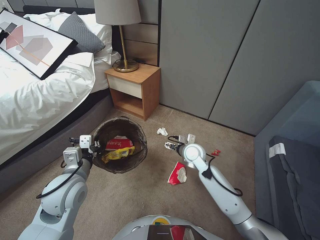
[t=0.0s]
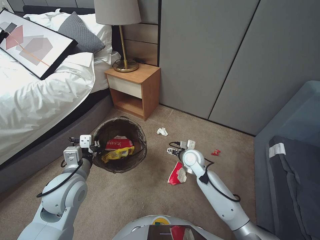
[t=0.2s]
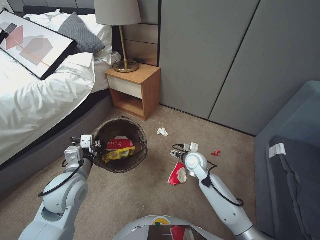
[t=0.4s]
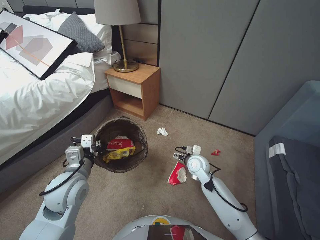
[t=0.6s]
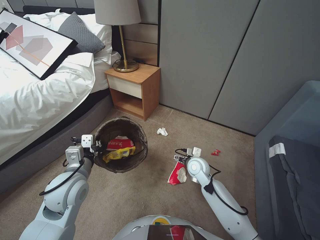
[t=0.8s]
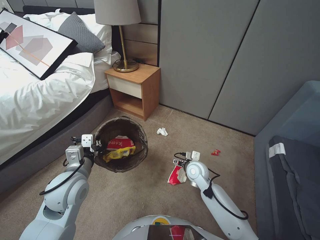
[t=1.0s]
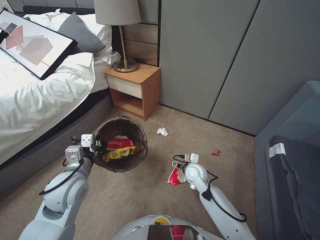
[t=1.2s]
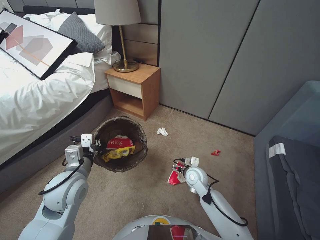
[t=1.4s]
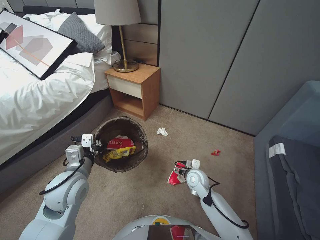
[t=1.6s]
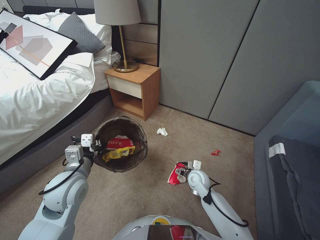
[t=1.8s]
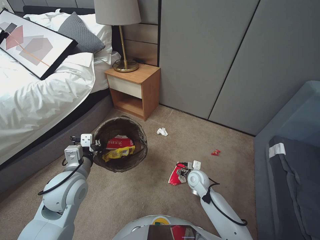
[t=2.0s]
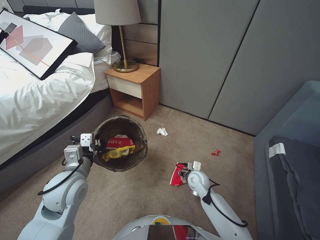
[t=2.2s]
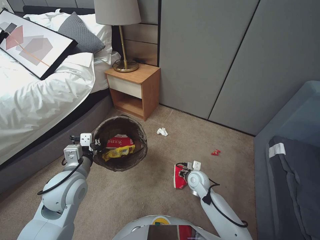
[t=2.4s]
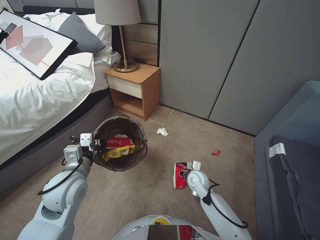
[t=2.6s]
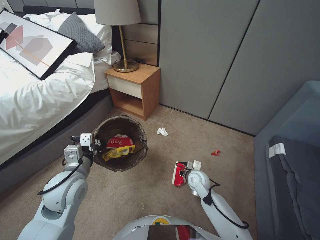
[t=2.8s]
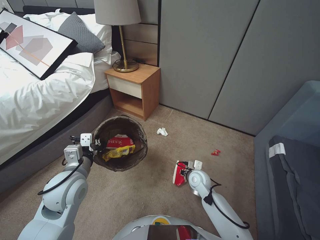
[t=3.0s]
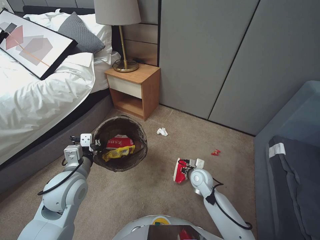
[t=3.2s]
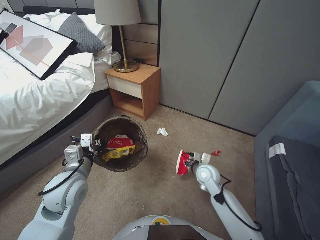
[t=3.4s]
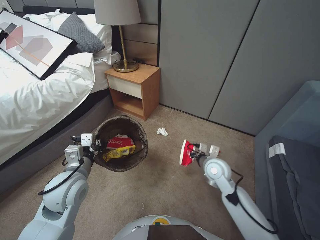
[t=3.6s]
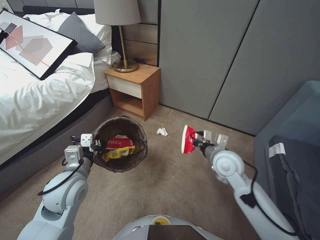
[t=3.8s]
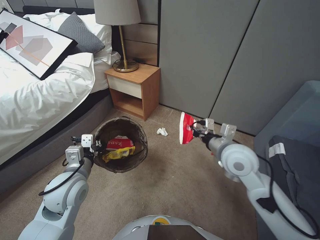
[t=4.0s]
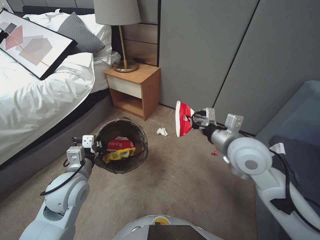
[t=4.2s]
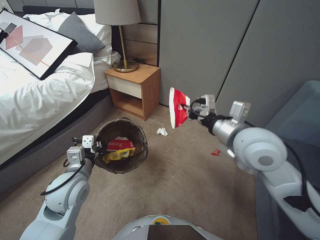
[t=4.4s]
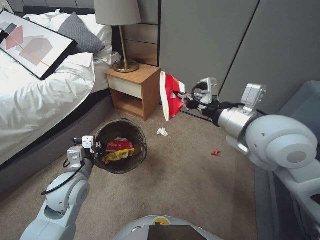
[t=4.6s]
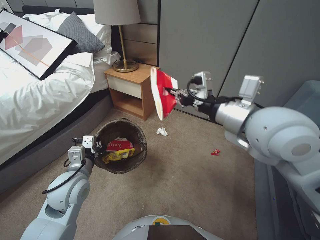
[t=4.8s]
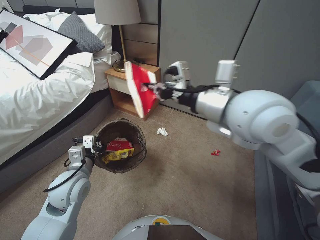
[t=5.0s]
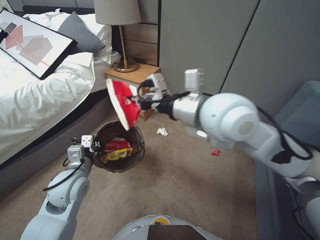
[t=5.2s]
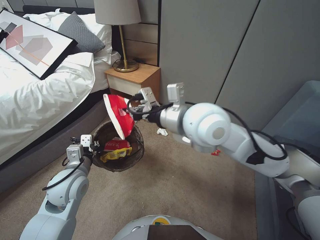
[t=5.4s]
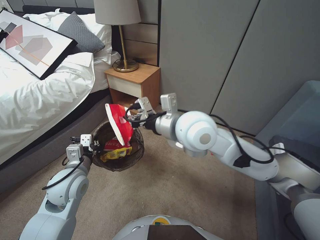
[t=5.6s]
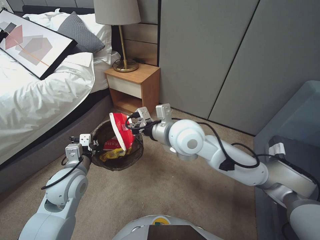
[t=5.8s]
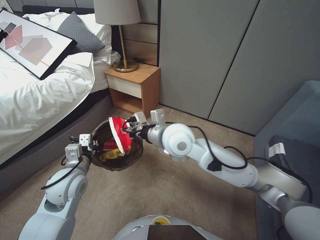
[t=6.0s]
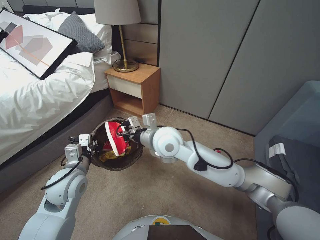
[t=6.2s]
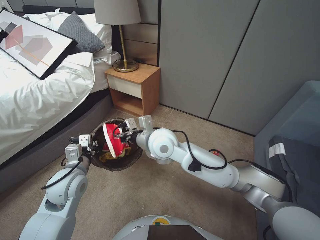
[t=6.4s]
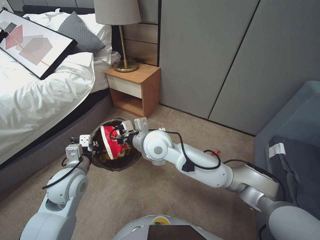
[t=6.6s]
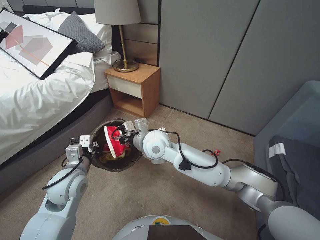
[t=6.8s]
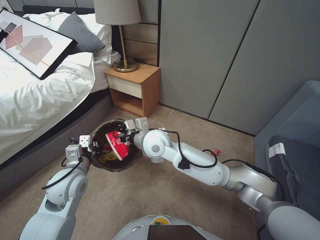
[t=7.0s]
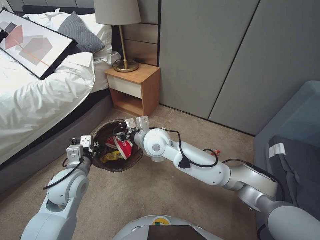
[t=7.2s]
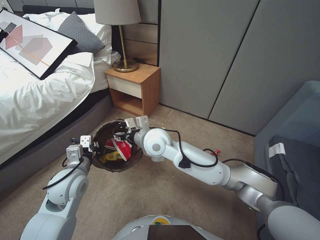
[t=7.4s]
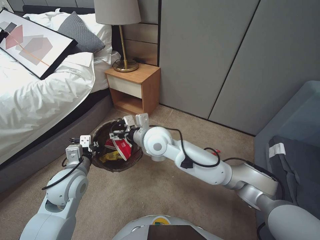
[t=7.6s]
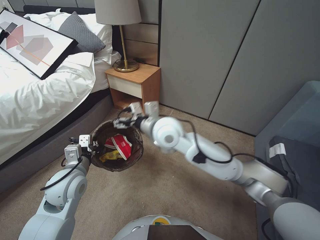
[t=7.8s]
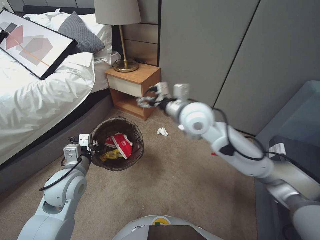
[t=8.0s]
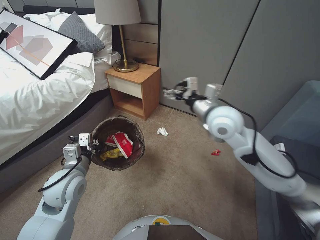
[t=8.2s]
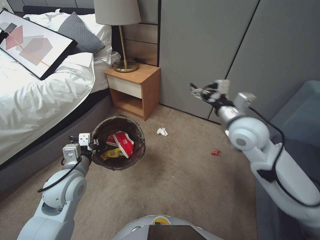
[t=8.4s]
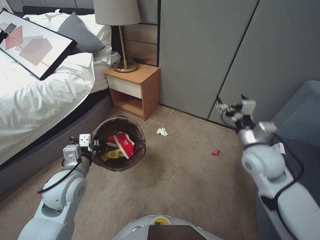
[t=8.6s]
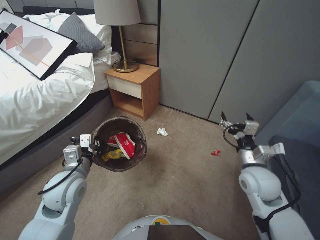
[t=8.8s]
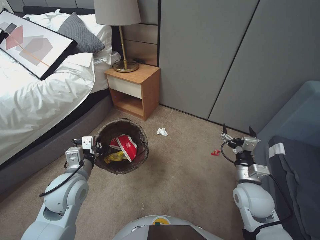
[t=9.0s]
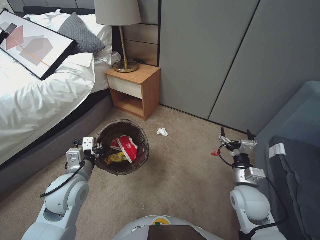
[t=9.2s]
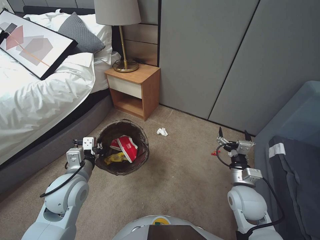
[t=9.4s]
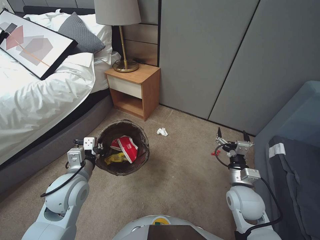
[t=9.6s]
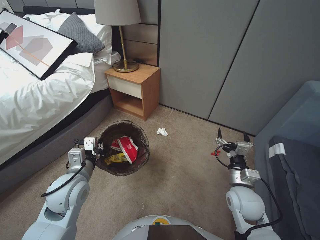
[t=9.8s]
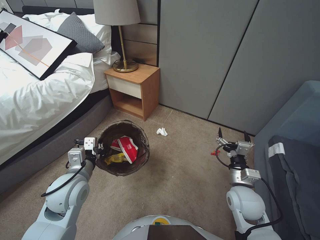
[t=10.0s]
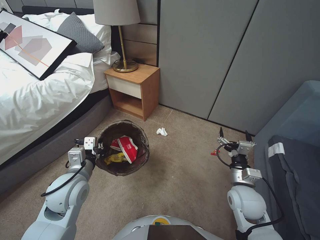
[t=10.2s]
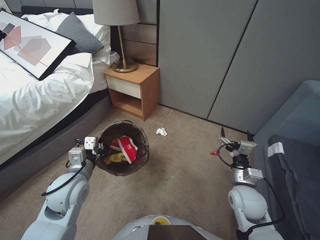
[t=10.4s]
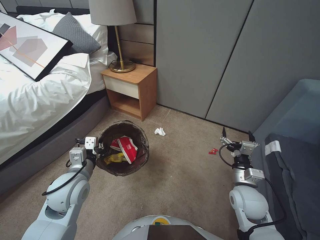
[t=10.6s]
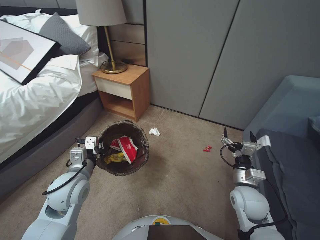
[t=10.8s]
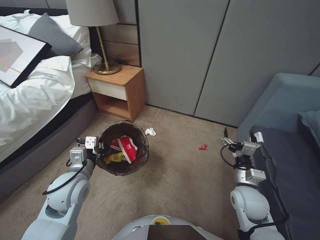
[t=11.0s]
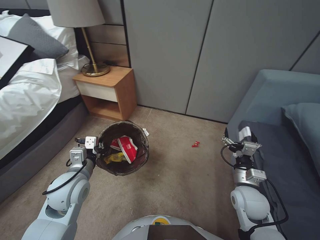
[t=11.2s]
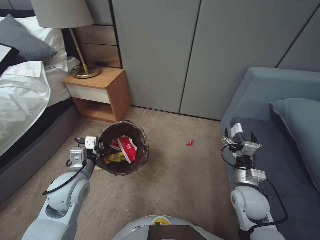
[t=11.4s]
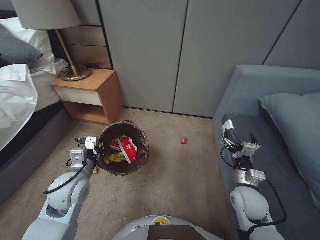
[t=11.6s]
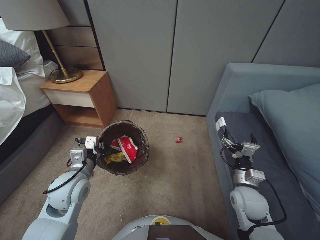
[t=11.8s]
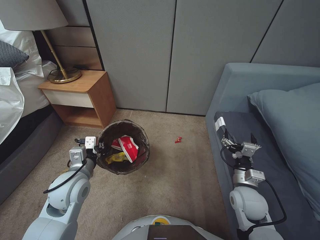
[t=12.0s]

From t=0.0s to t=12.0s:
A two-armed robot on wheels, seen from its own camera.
Task of the whole recording: Pick up the trash bin, then pick up the garbage from the floor and place it into the trash bin.
From t=0.0s to t=1.6s: The right gripper shifts about 15 cm downward and backward.
From t=1.6s to t=3.0s: The right gripper closes its fingers.
From t=3.0s to t=4.4s: The right gripper shifts approximately 35 cm upward.
From t=4.4s to t=6.0s: The right gripper goes approximately 15 cm to the left.
From t=6.0s to t=7.6s: The right gripper shifts some 10 cm to the left and downward, and opens up.
From t=7.6s to t=9.0s: The right gripper moves to the right, roughly 30 cm.
From t=9.0s to t=10.4s: The grippers stay close to where they were, moving slightly.

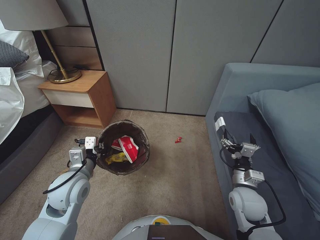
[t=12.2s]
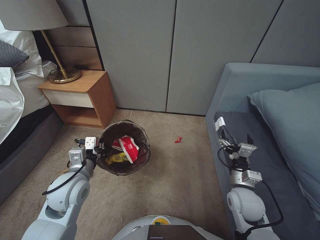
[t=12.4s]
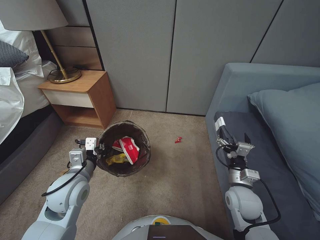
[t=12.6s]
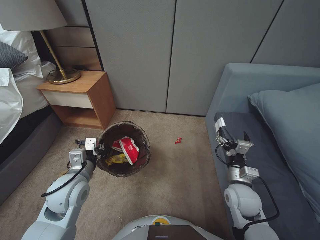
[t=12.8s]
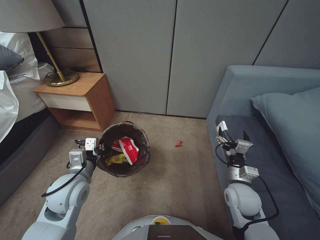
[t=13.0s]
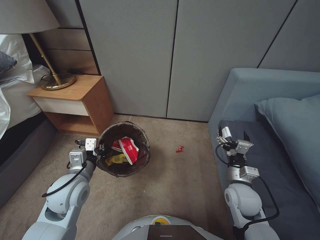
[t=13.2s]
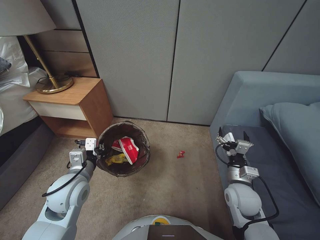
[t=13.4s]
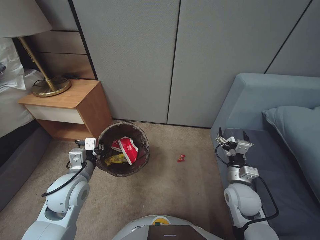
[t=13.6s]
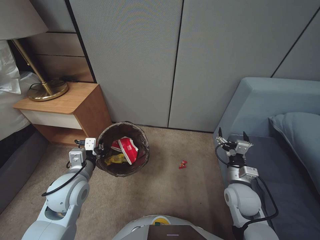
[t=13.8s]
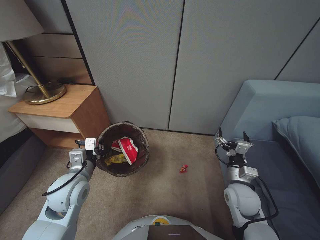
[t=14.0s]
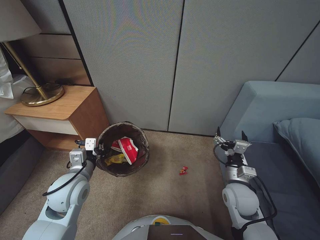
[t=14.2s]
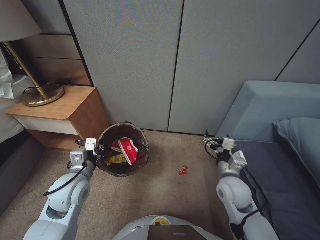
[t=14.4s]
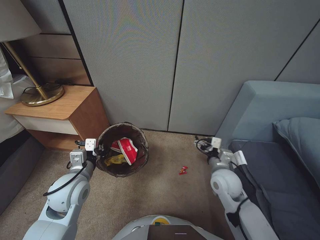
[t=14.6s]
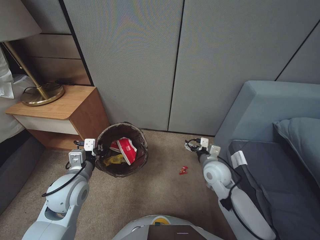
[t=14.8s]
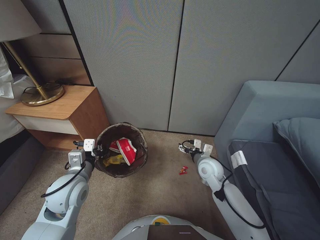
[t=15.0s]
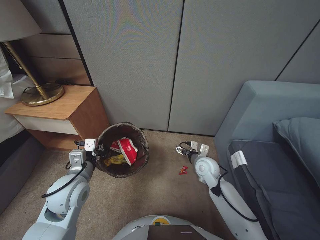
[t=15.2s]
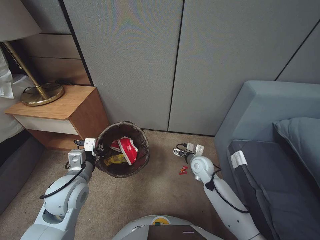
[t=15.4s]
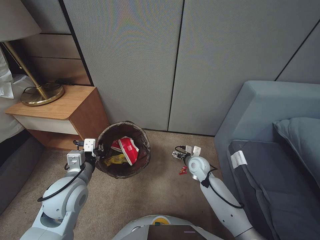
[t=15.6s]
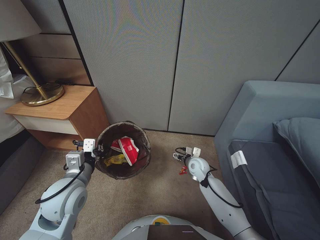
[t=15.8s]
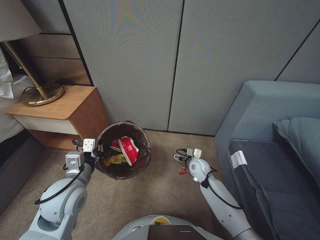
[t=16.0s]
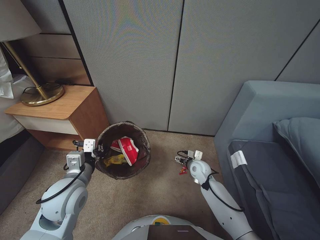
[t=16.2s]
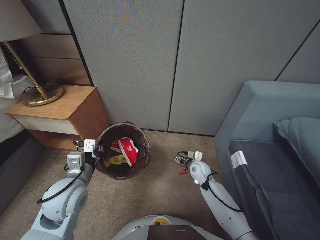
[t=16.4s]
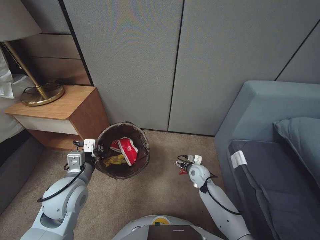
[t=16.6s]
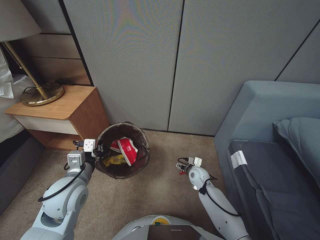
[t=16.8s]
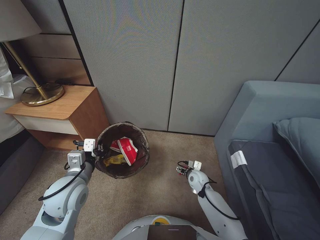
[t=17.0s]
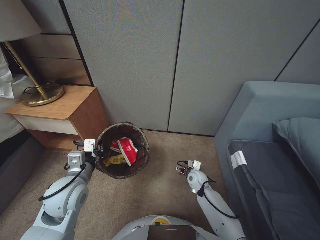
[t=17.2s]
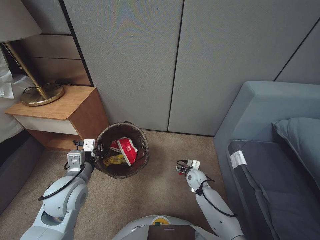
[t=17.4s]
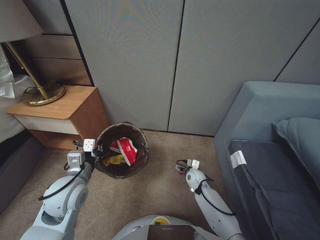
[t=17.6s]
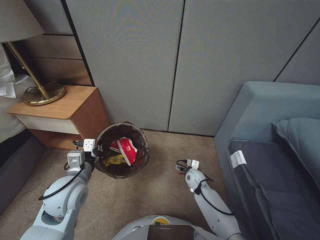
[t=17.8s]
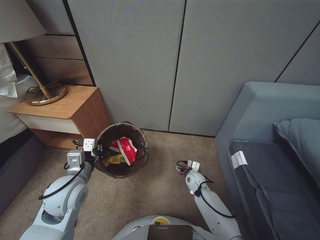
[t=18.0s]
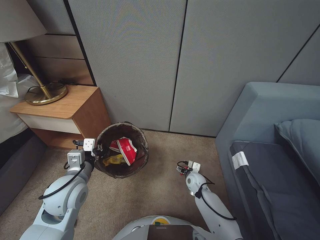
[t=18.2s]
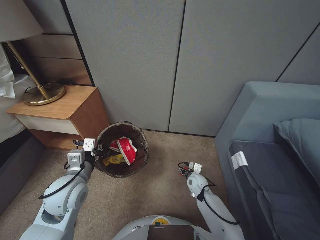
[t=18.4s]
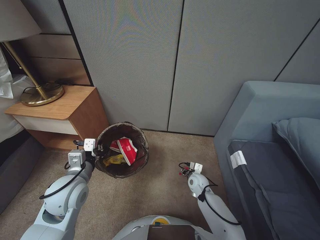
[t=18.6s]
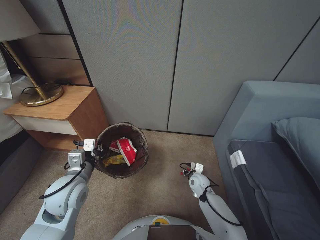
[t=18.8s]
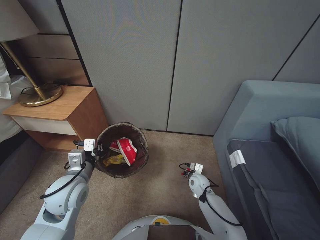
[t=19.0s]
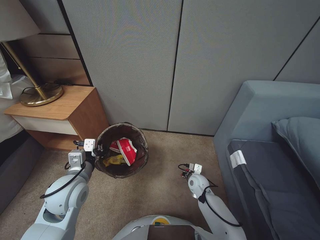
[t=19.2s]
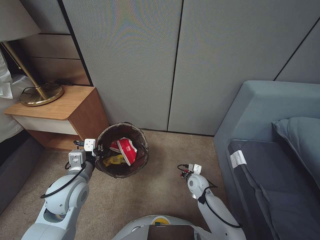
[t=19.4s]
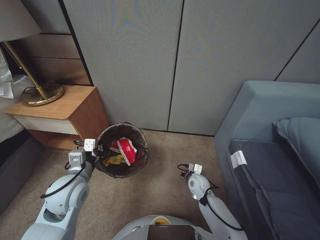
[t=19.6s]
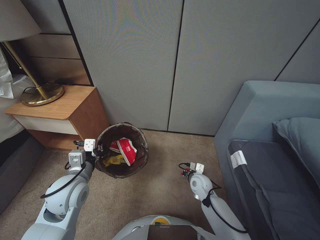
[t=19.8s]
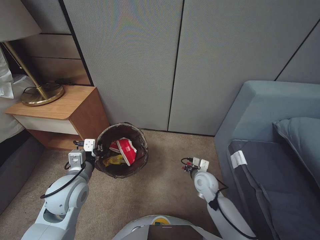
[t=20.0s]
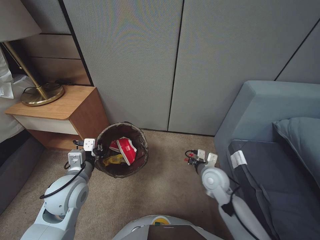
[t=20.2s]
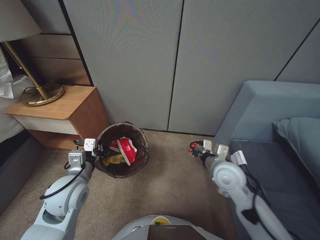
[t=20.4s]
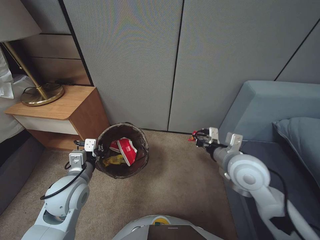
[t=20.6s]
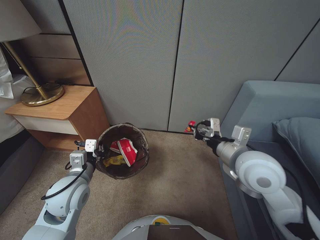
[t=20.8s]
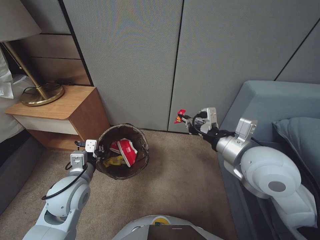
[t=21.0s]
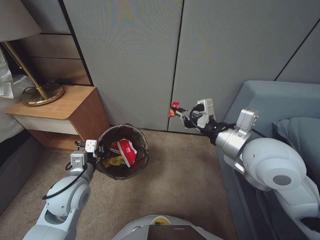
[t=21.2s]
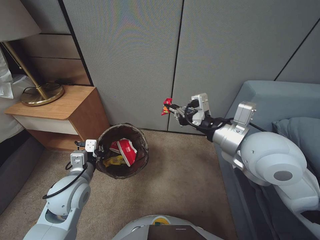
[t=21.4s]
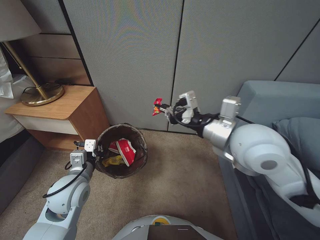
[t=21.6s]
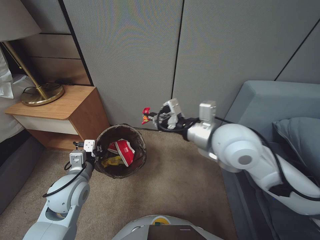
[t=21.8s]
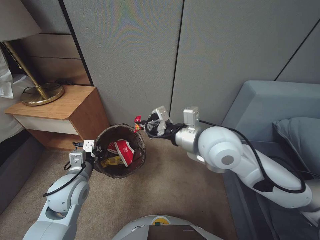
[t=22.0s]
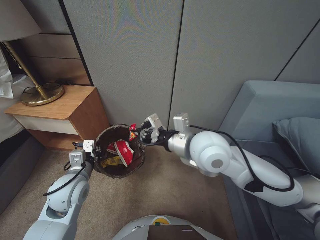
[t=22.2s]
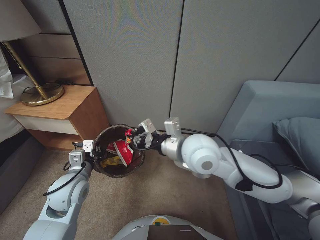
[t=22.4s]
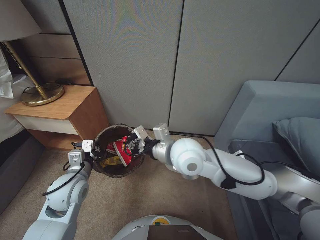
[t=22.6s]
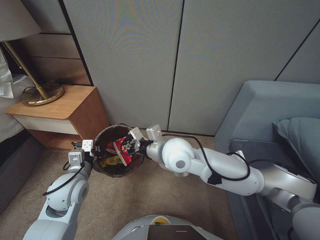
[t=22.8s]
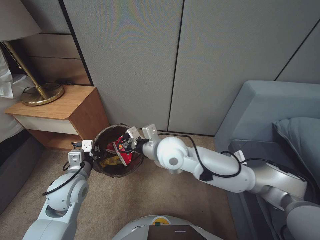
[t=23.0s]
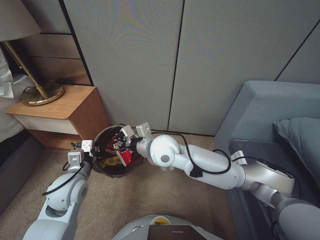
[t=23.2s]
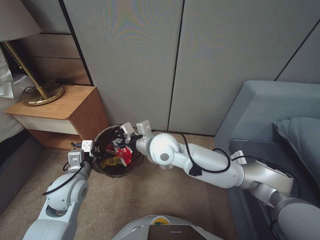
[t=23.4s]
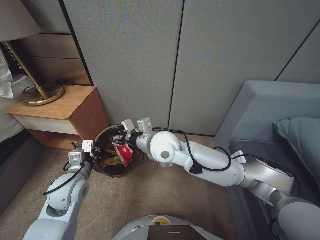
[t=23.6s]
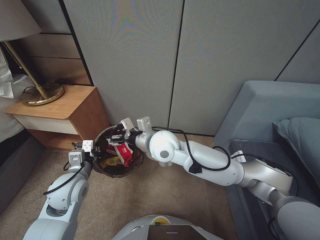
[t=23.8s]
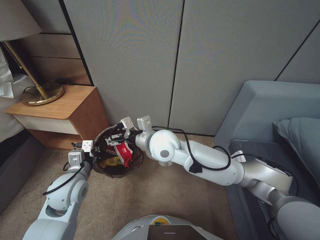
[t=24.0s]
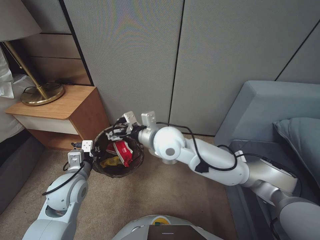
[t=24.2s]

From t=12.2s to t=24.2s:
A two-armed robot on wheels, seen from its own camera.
Task of the whole recording: Pick up the trash bin, then pick up the garbage from the floor and place it into the trash bin.
From t=13.8s to t=15.2s: The right gripper heads forward and to the left, covering about 15 cm.
From t=15.2s to t=16.6s: The right gripper heads downward, covering approximately 10 cm.
From t=16.6s to t=18.2s: The right gripper moves downward, approximately 5 cm.
From t=18.2s to t=19.8s: The right gripper travels upward by some 5 cm, and closes.
From t=19.8s to t=21.2s: The right gripper travels upward by roughly 40 cm.
From t=21.2s to t=22.6s: The right gripper is displaced to the left by some 15 cm.
From t=22.6s to t=24.2s: The right gripper goes about 5 cm to the left, and opens.
